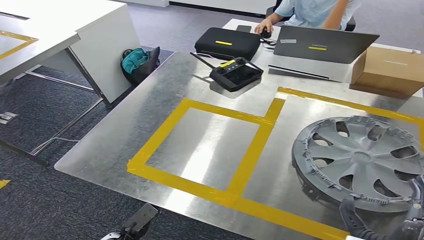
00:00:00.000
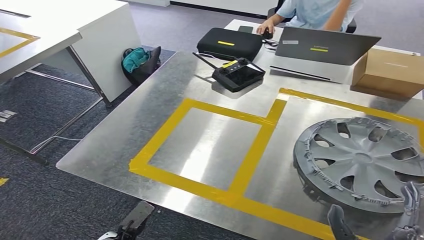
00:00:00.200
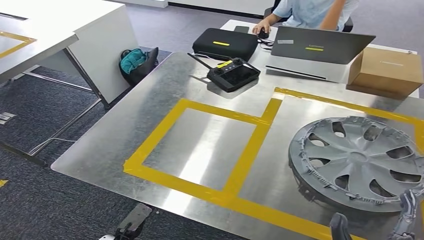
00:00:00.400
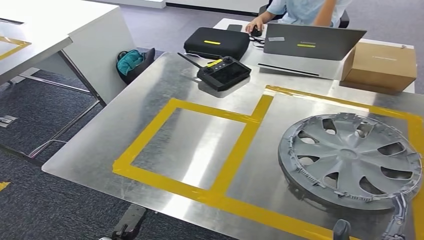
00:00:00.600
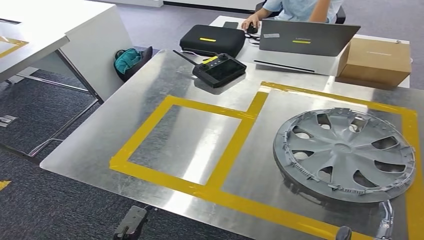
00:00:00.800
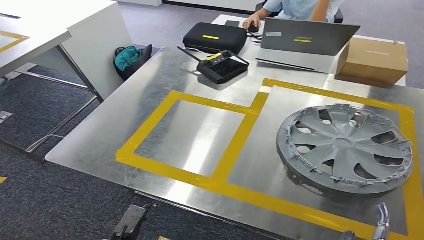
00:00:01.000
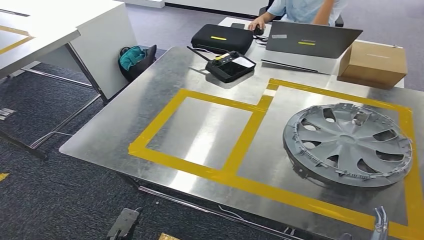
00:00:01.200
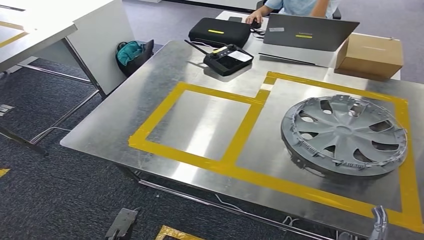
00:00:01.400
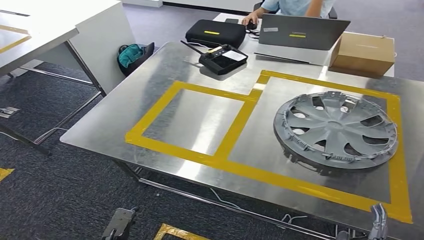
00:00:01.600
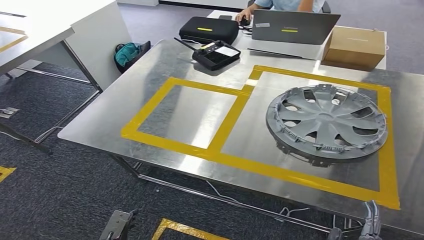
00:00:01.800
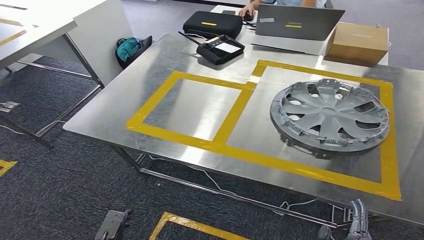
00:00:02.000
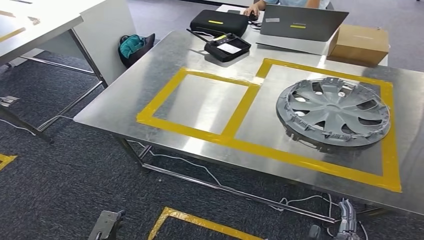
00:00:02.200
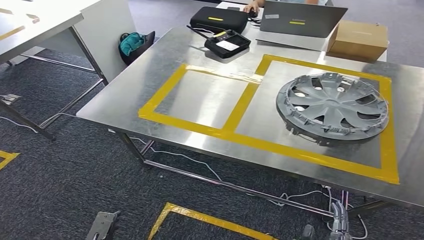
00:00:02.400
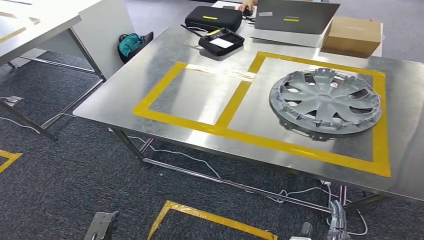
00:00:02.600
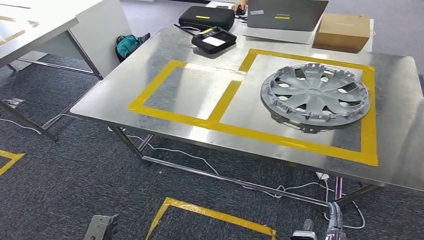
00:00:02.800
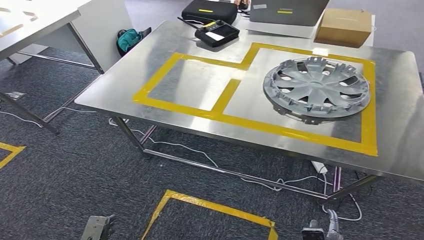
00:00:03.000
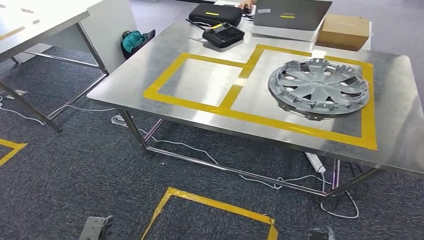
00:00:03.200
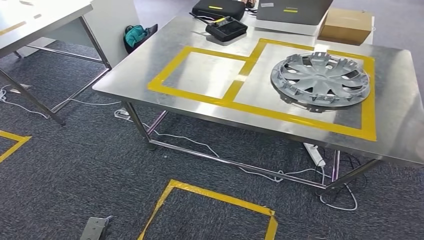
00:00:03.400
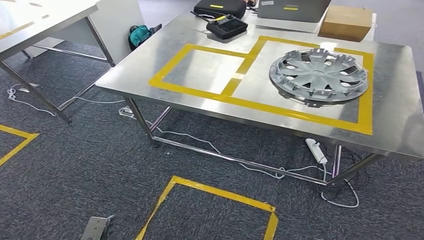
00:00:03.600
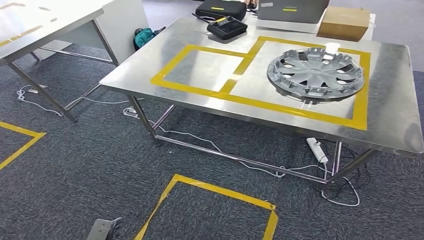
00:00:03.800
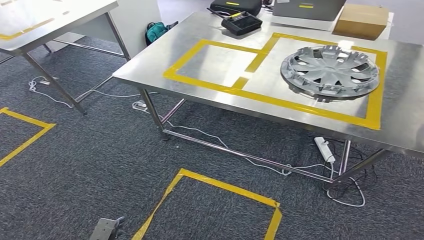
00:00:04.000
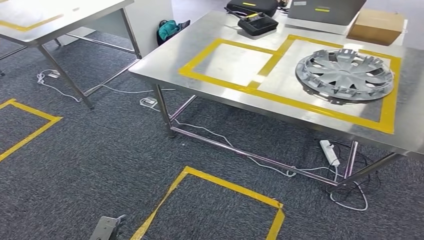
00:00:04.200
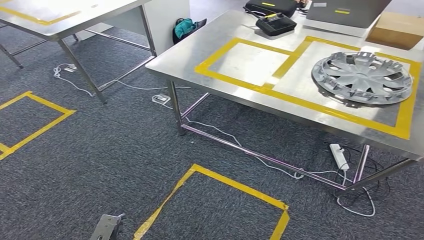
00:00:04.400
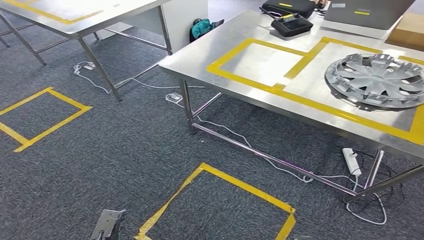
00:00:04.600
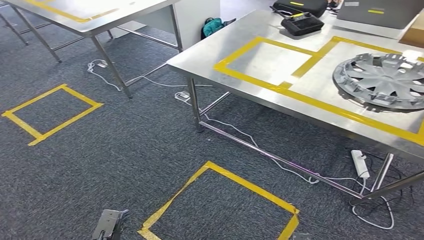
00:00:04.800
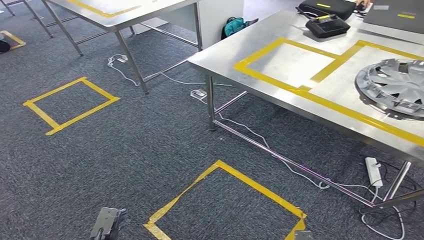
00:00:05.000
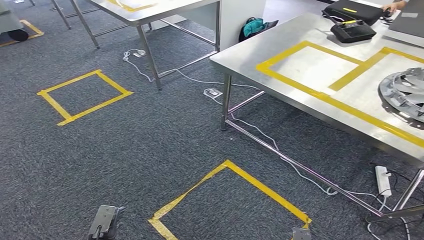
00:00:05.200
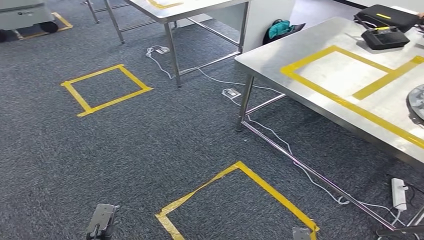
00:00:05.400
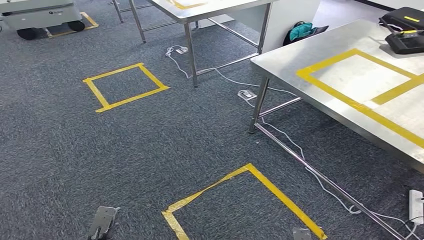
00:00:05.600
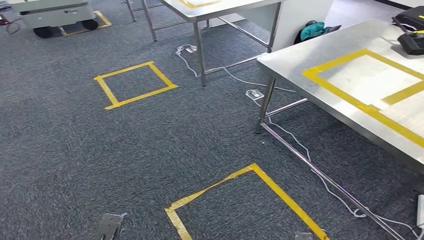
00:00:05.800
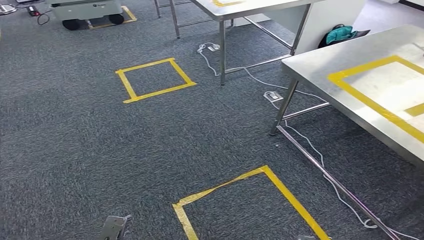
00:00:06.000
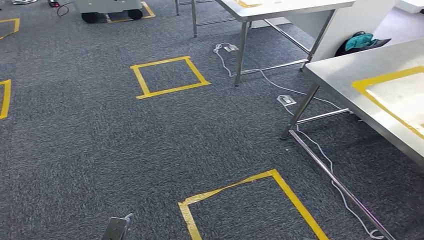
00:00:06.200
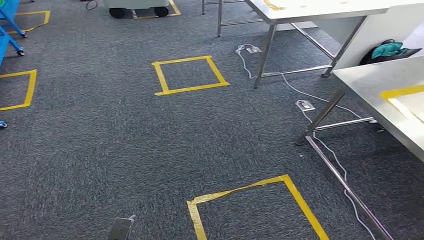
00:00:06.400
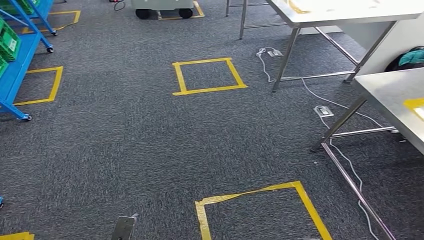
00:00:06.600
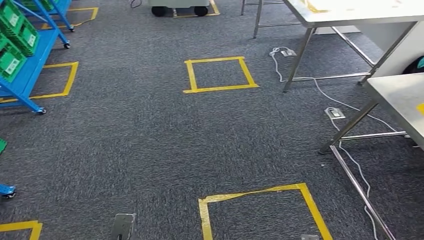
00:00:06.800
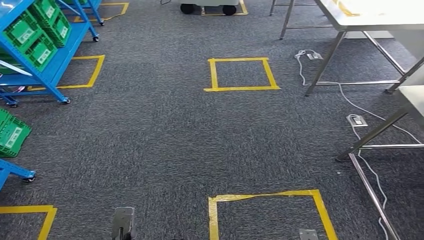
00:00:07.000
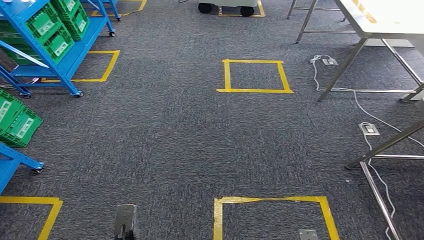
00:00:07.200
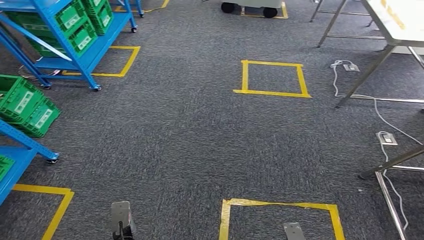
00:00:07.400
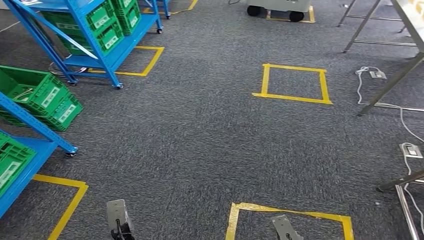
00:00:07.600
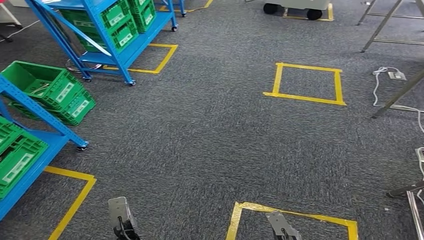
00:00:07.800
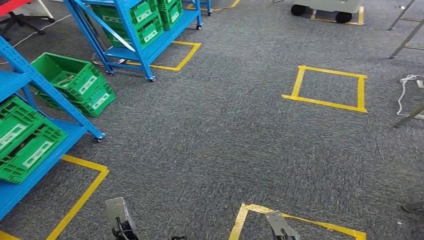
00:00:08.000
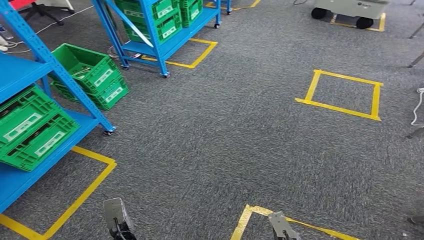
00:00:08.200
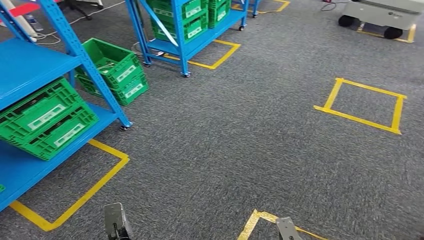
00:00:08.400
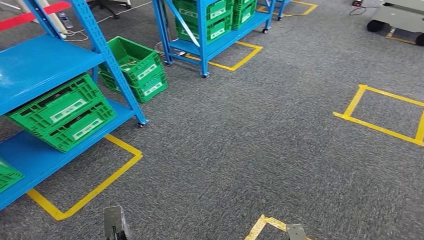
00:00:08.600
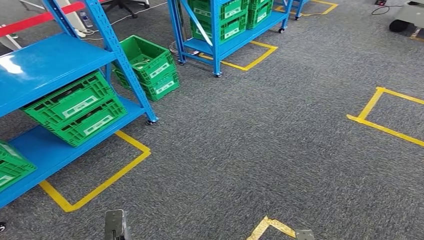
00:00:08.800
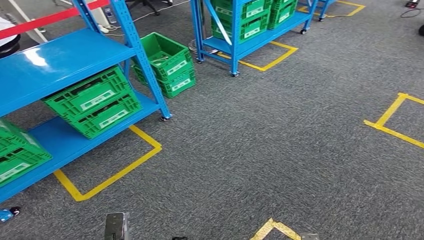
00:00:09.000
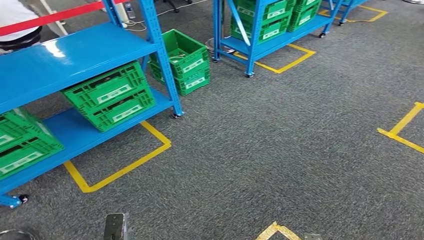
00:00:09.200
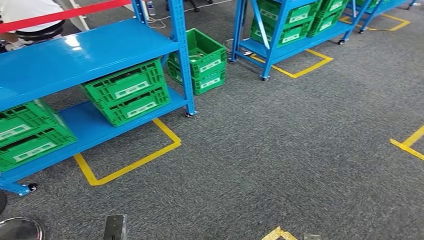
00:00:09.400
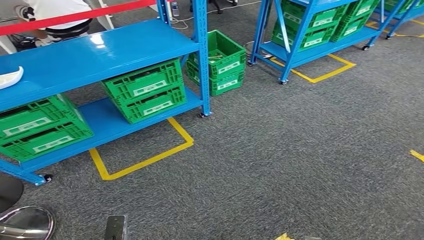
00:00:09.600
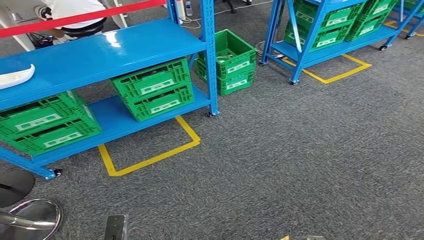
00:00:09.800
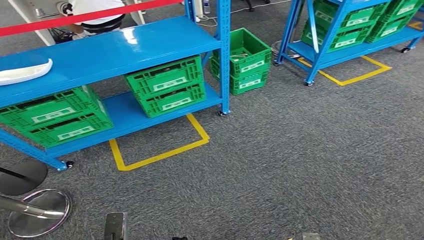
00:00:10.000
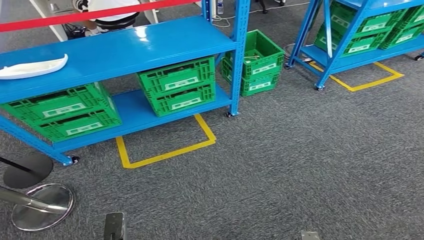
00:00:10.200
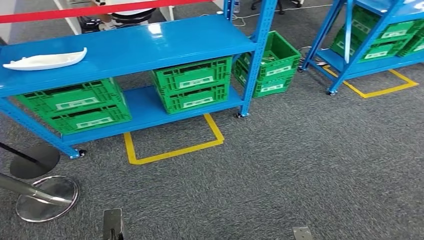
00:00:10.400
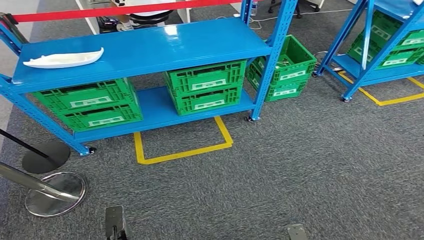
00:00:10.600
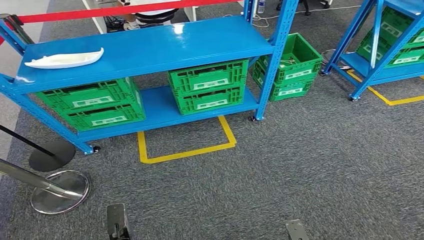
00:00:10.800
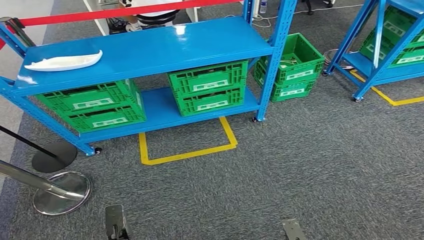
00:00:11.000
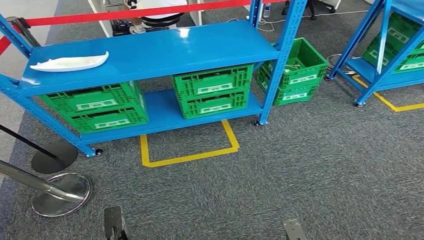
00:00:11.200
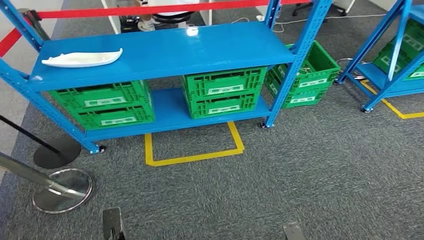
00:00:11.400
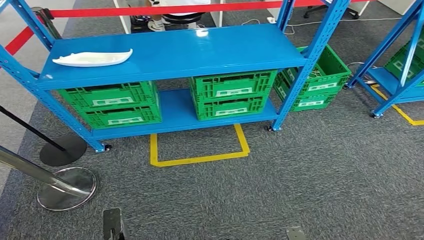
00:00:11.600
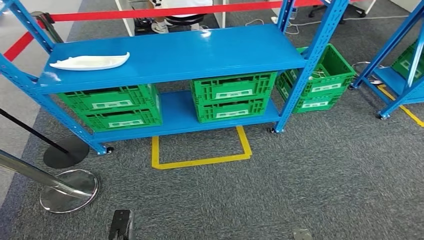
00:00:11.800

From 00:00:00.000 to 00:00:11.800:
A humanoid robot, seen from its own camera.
Step, from 00:00:00.000 to 00:00:11.800: Return to the initial position at the workbench.
